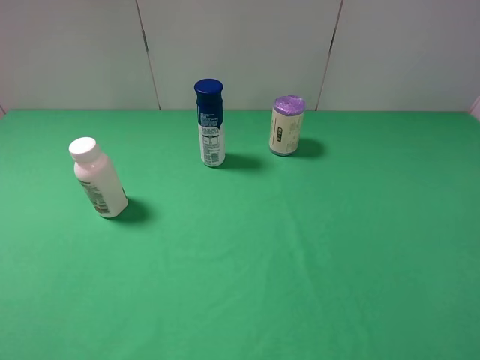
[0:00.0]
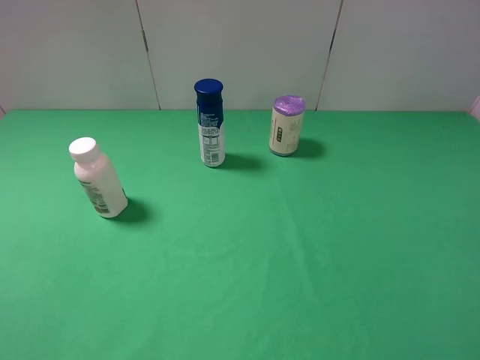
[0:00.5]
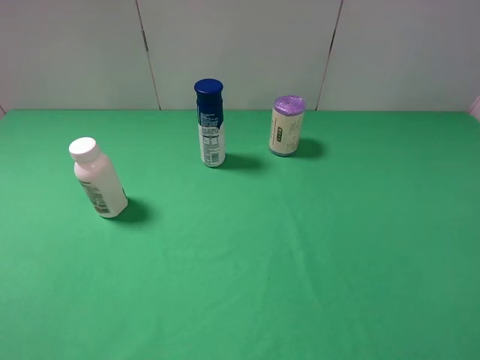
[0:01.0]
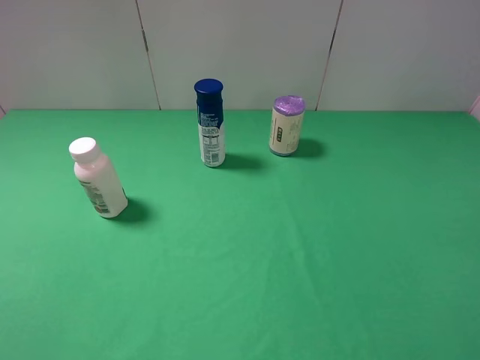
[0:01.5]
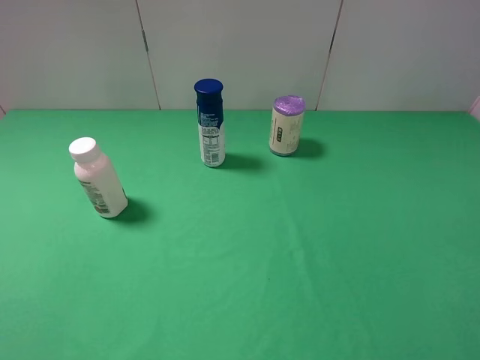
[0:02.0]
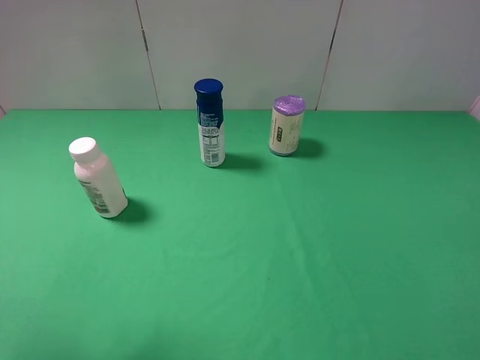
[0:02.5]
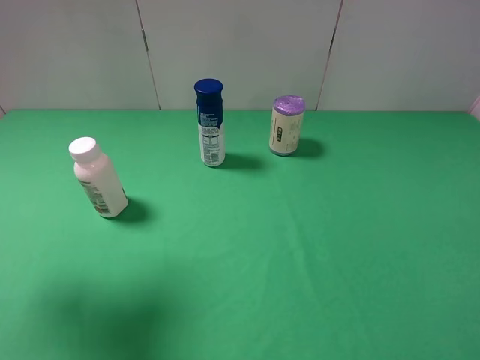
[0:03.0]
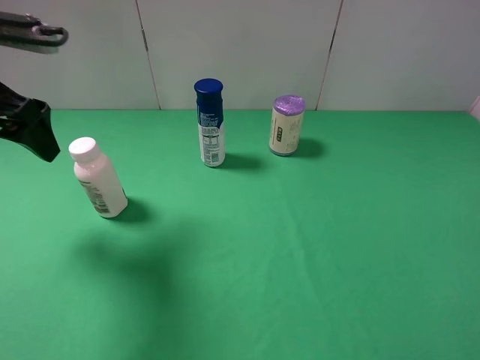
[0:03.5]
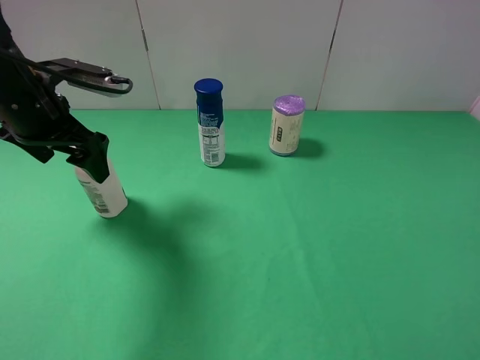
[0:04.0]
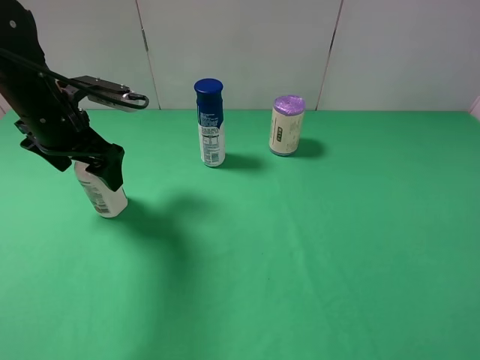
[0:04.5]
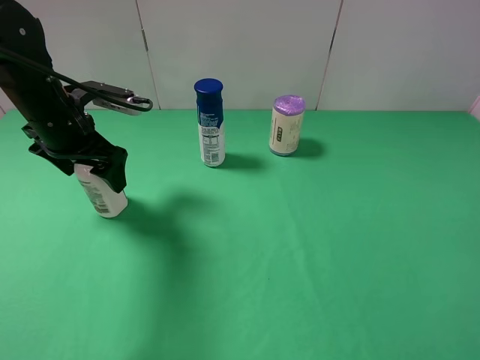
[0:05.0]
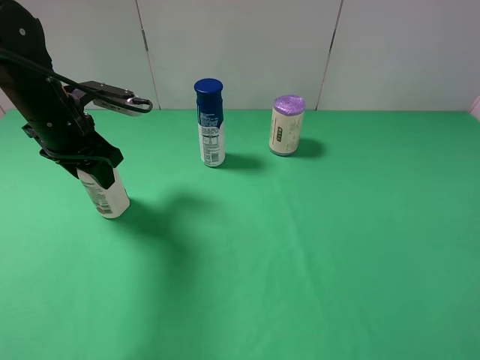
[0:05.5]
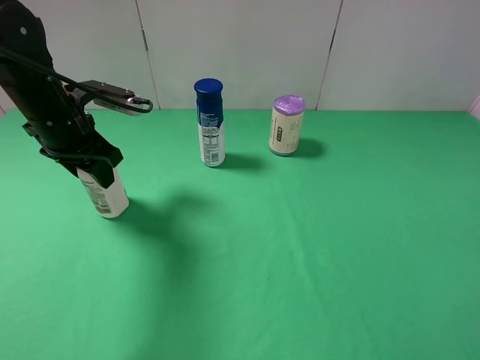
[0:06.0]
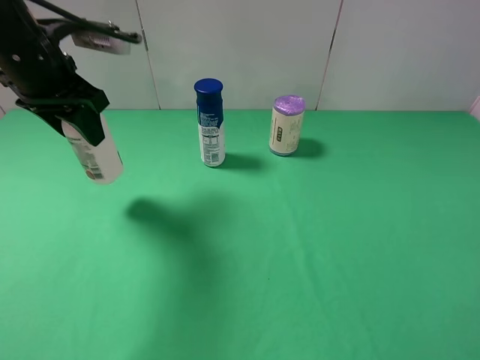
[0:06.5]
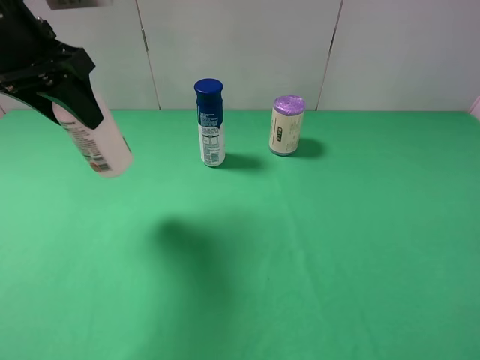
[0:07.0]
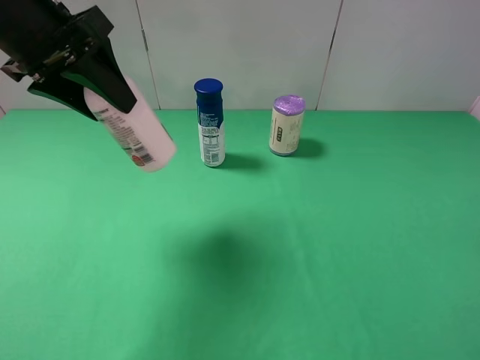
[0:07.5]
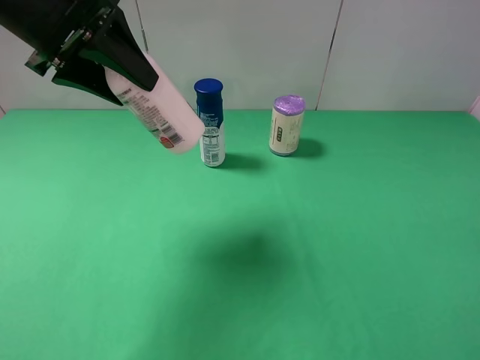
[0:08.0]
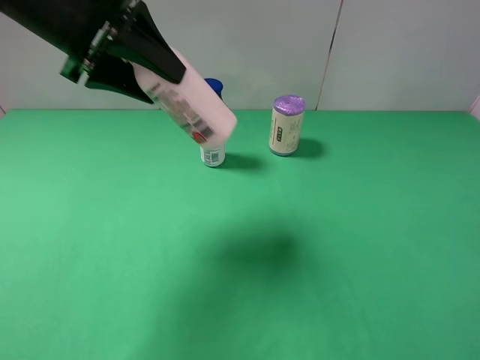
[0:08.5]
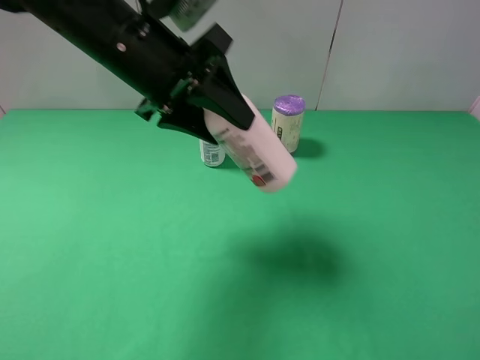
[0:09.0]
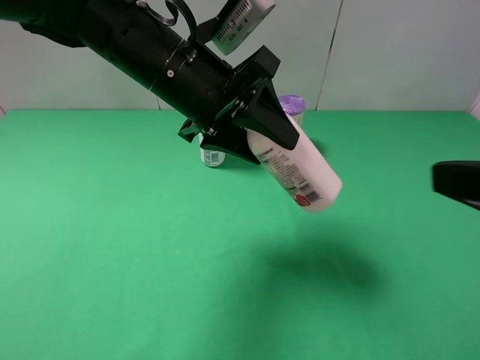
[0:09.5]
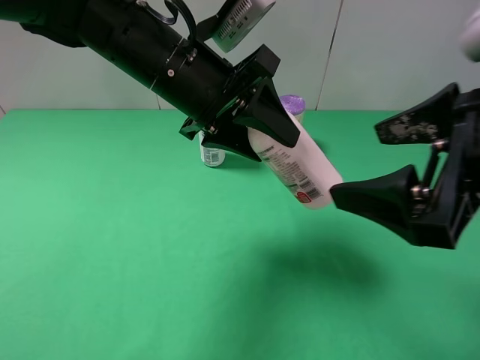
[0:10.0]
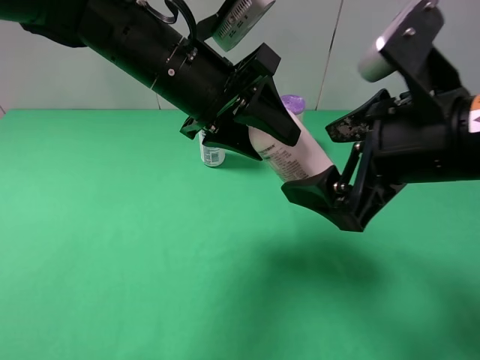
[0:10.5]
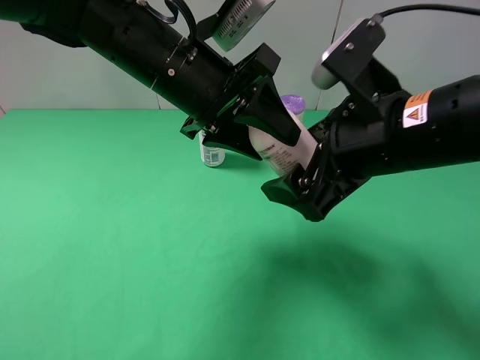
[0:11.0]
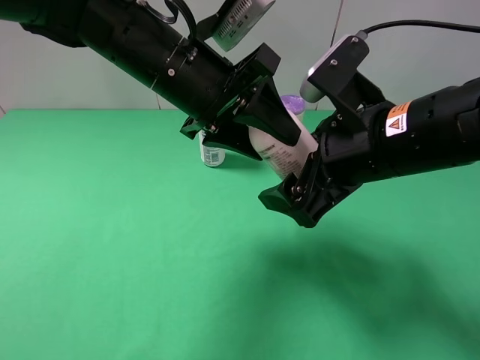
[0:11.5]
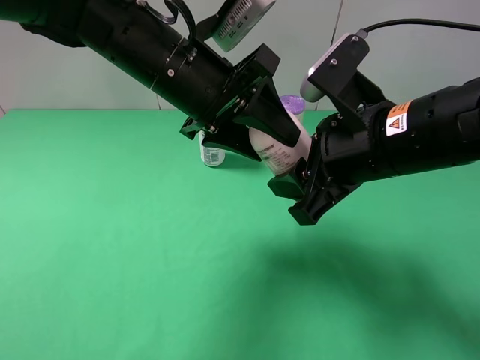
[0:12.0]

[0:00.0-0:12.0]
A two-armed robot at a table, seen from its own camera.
Task of the whole recording: use the left gripper to pick up the item and transfer it from the left gripper to the right gripper.
Step, 0:00.0 to 0:05.0: Use the left gripper to grab the milk on the left side of the table.
0:02.0 to 0:04.0: The left gripper goes about 30 cm forward.
0:04.0 to 0:06.0: The left gripper closes.
0:06.0 to 0:08.0: The left gripper moves upward, some 15 cm.
0:08.0 to 0:10.0: The left gripper heads to the right and downward, covering approximately 15 cm; the right gripper heads forward and to the left, covering about 15 cm.
0:10.0 to 0:12.0: The right gripper is displaced forward, to the left and downward by approximately 10 cm, and closes up.

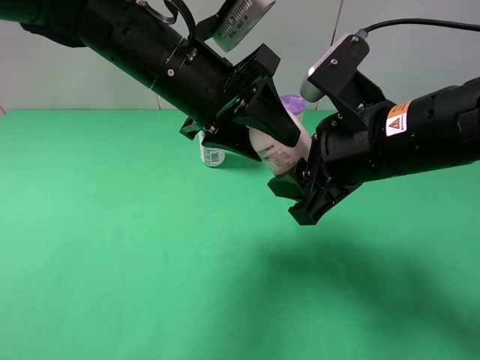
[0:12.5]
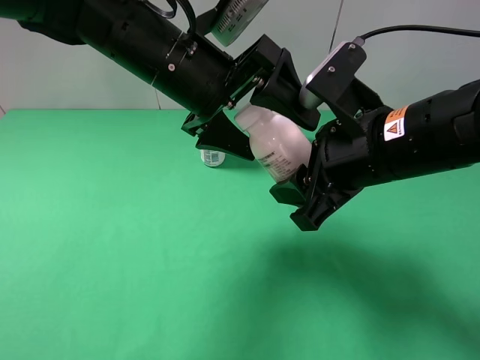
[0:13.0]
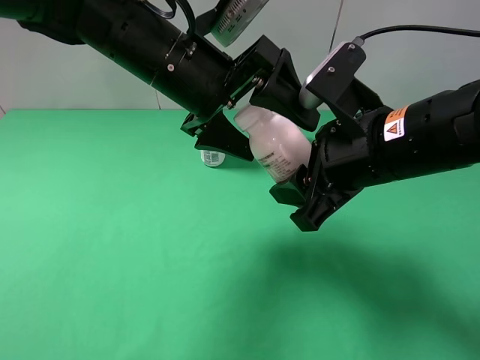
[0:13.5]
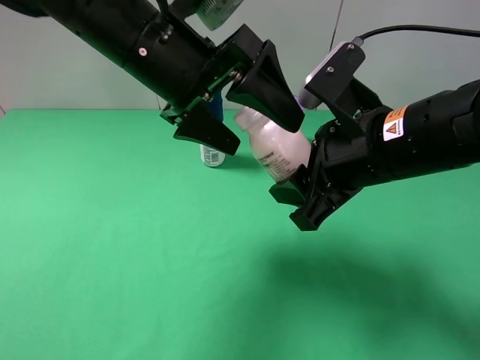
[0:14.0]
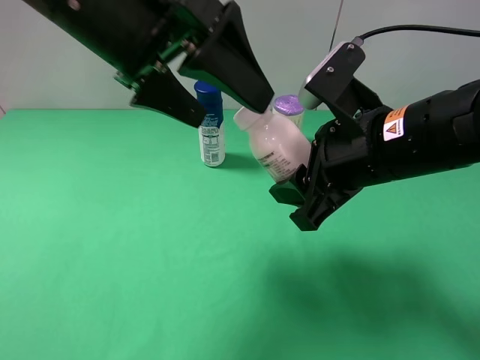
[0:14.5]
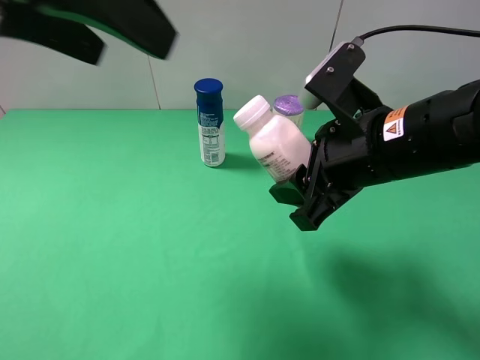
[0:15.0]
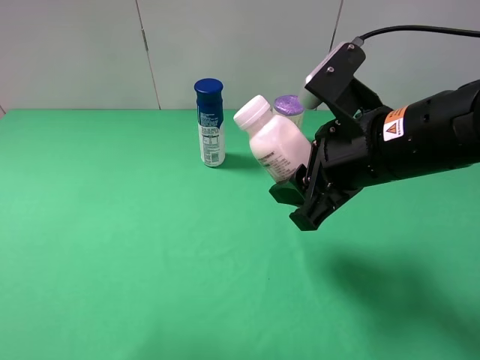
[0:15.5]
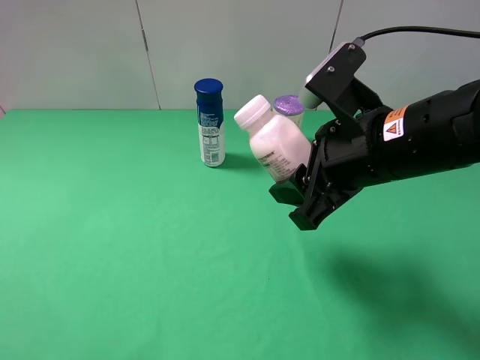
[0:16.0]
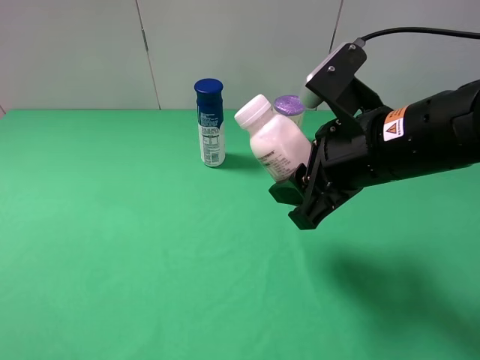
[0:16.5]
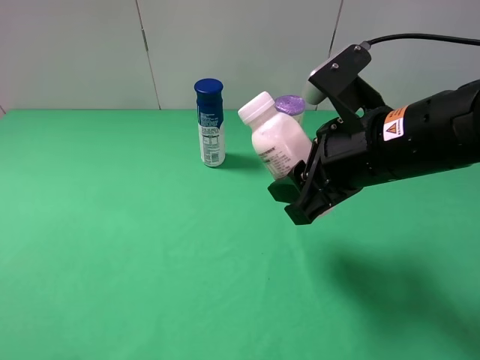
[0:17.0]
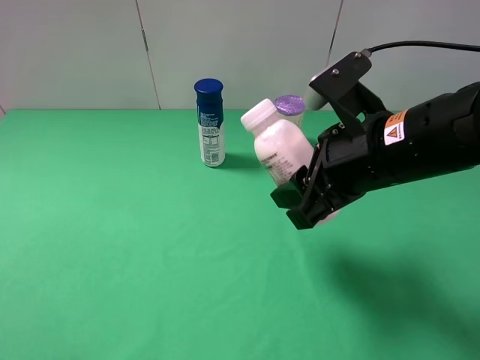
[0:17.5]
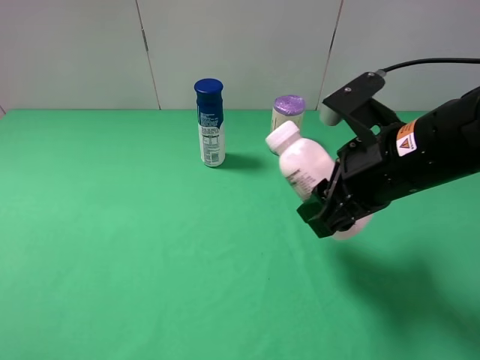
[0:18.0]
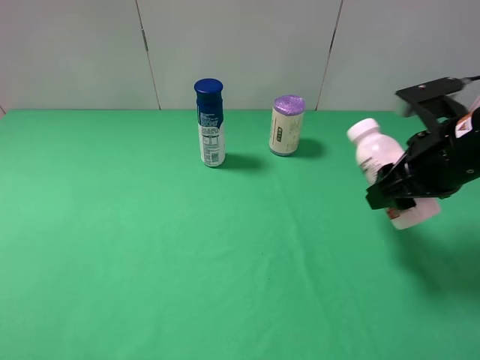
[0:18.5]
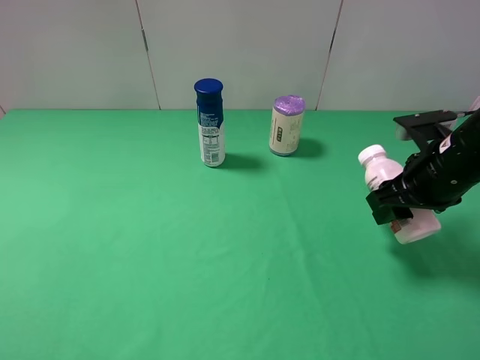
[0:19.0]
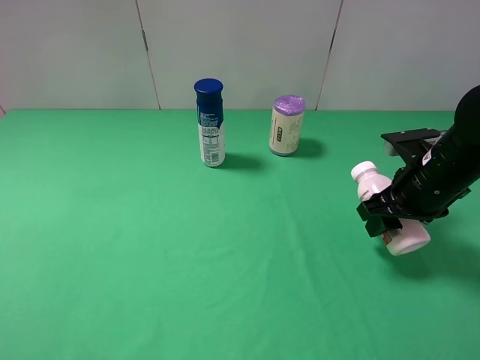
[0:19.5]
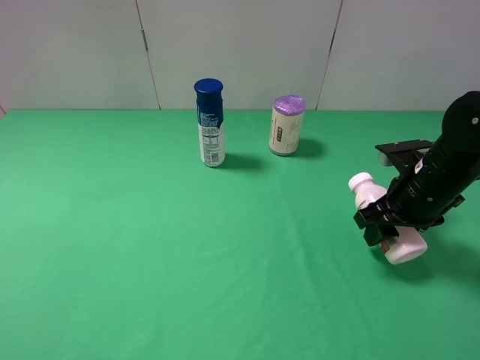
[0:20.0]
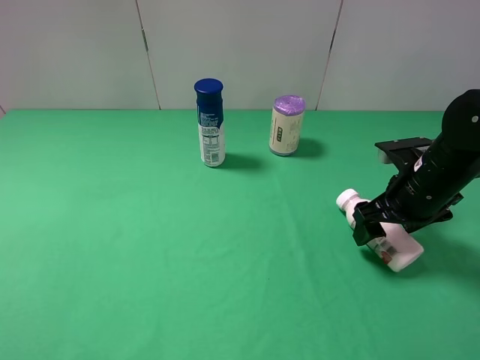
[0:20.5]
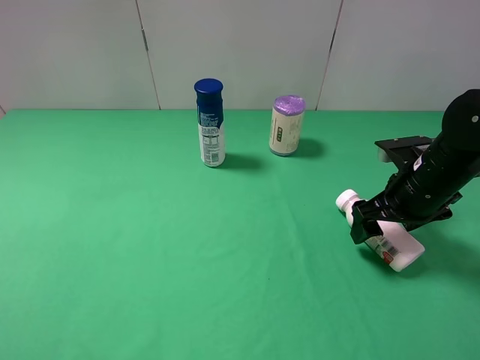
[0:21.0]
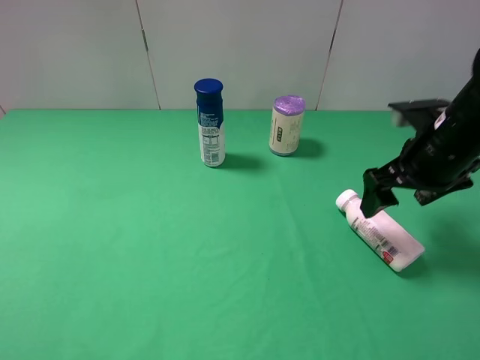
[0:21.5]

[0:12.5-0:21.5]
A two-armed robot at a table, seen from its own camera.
Task of the whole recording: use the left gripper to pick up the item and transfer it from the left gripper to the right gripper.
Step, 0:13.5 to 0:20.5: The right gripper places milk on the right side of the table.
0:12.5 to 0:14.5: The left gripper heads upward, covering about 10 cm, and opens.
0:14.5 to 0:17.0: The left gripper travels backward and to the left by some 30 cm.
0:17.0 to 0:19.5: The right gripper moves to the right, downward and forward, roughly 15 cm.
0:19.5 to 0:21.5: The right gripper travels upward by roughly 5 cm, and opens up.

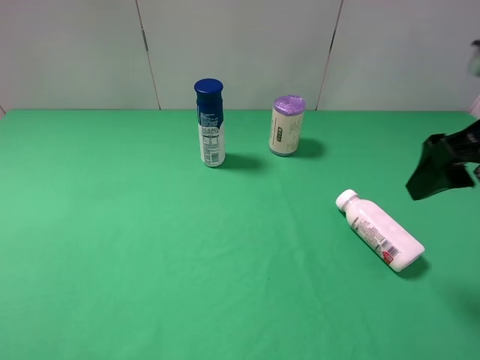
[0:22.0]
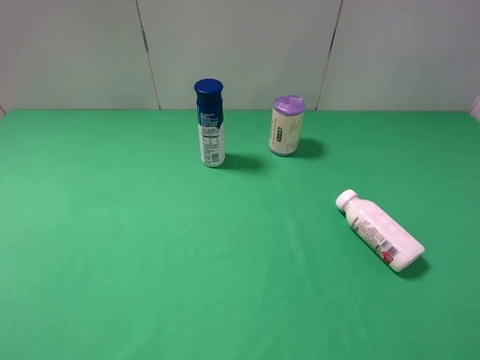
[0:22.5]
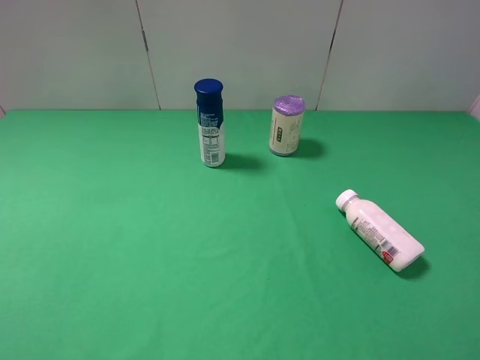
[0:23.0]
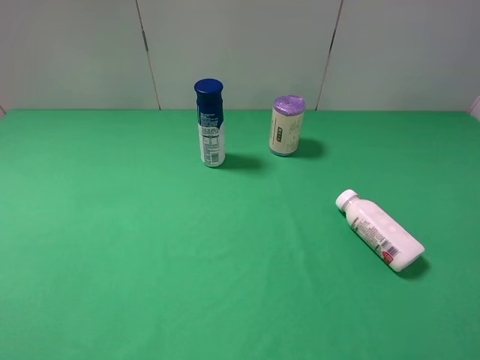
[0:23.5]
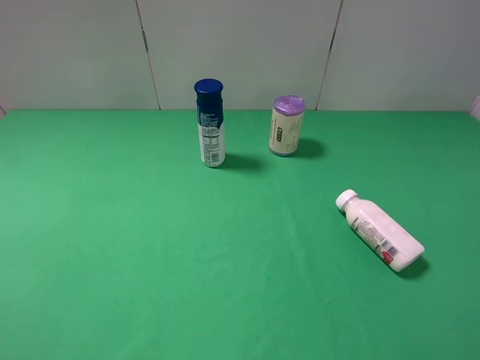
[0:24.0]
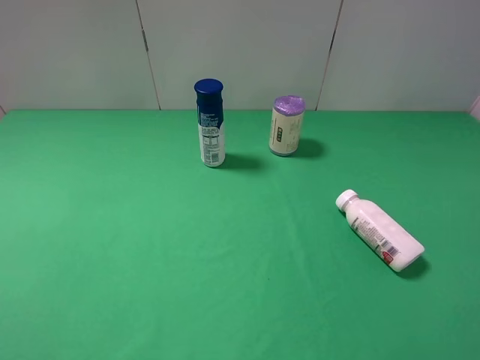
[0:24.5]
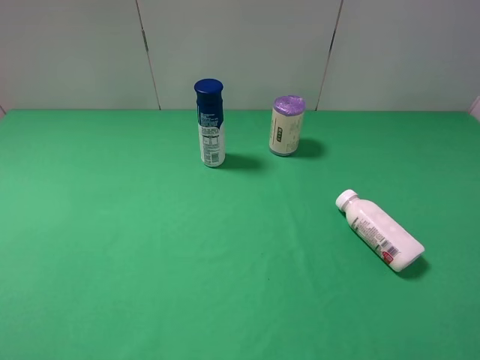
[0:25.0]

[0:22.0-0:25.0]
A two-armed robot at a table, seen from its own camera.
Task of the whole recording: use the left gripper to pick up the item and transfer it from the left gripper to the right gripper.
0:22.0 to 0:23.5: The right gripper is displaced backward by approximately 20 cm.

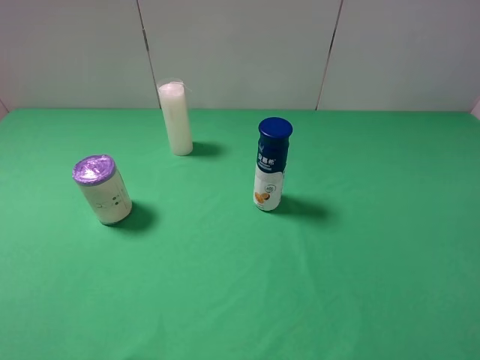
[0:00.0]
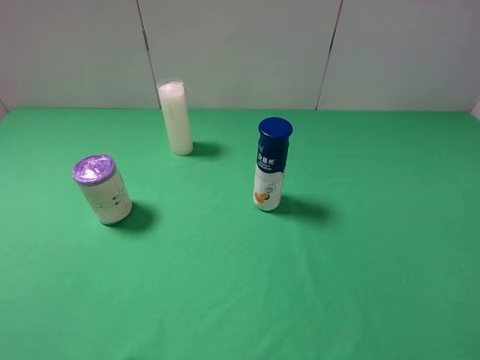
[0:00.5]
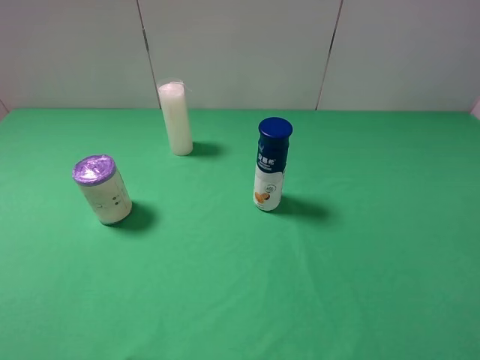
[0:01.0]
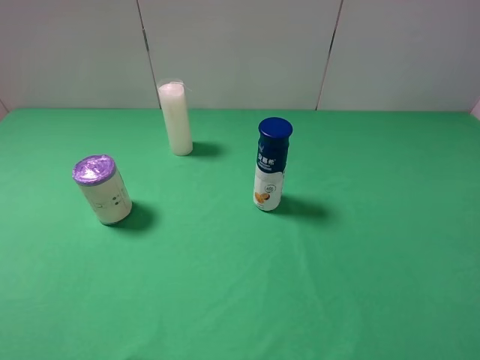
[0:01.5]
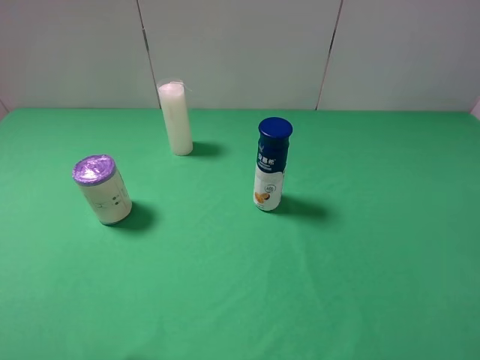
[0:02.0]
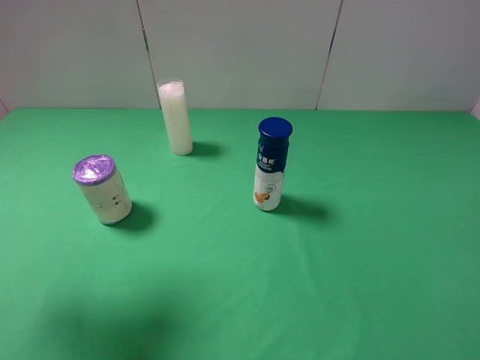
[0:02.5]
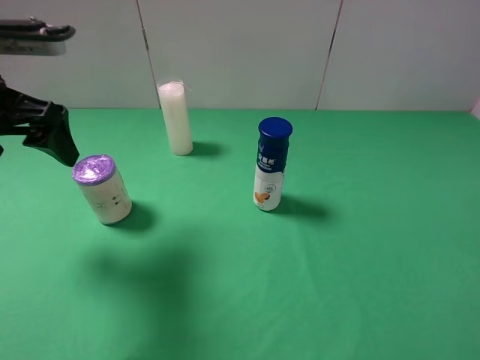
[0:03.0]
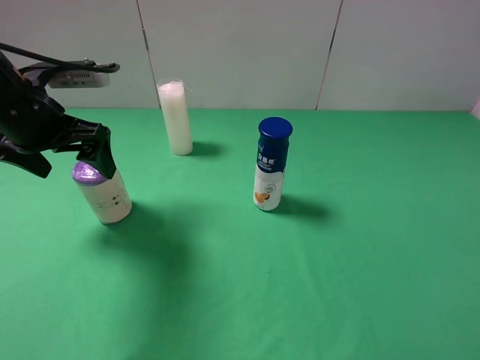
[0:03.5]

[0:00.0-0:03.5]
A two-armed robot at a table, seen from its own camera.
Task of the whole recording: use the left gripper to pick up the item and transfer it from the left gripper to the right gripper.
0:02.0 to 0:03.5: The left gripper is displaced forward and downward by roughly 25 cm.
